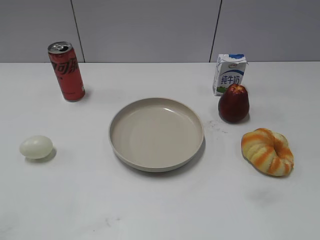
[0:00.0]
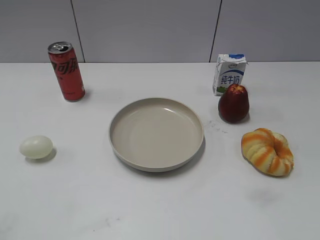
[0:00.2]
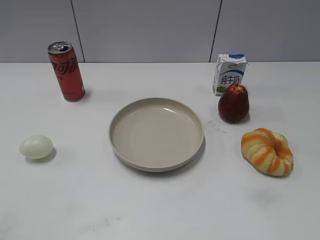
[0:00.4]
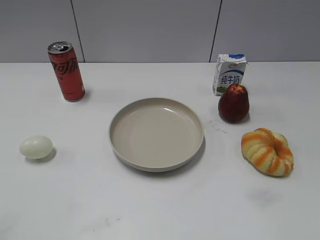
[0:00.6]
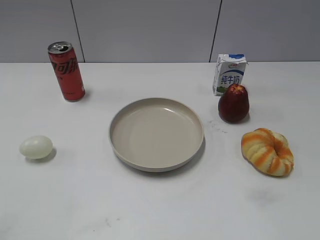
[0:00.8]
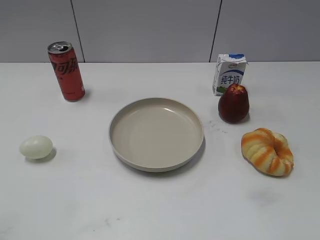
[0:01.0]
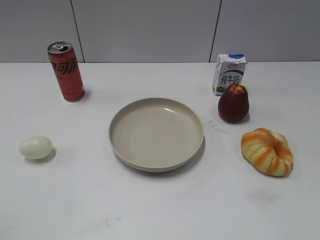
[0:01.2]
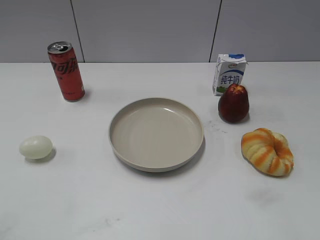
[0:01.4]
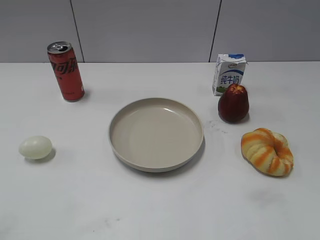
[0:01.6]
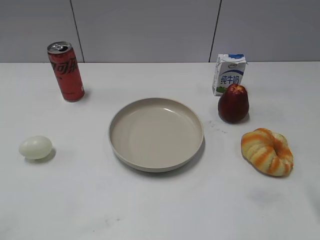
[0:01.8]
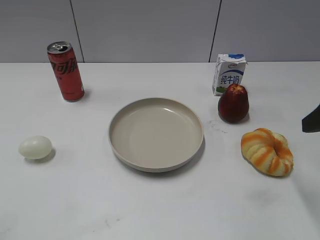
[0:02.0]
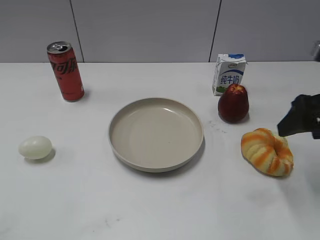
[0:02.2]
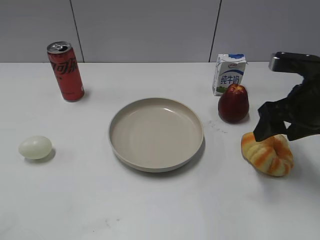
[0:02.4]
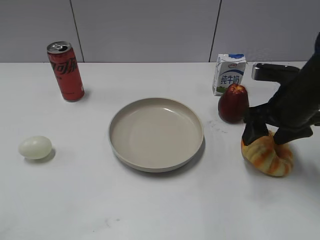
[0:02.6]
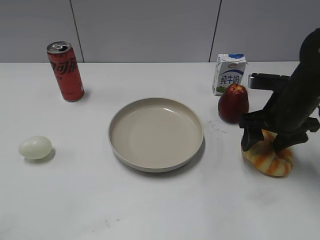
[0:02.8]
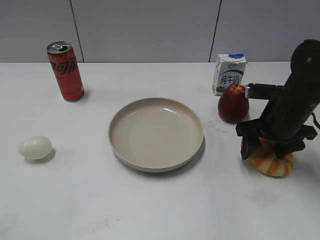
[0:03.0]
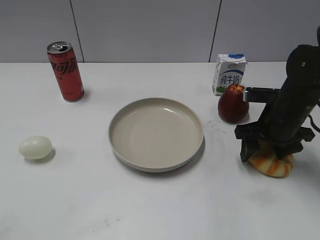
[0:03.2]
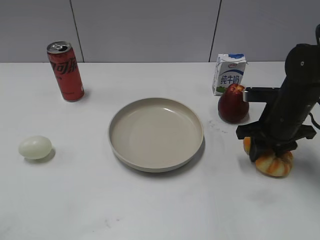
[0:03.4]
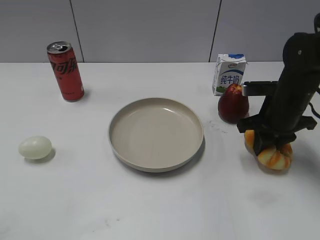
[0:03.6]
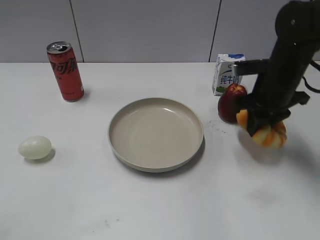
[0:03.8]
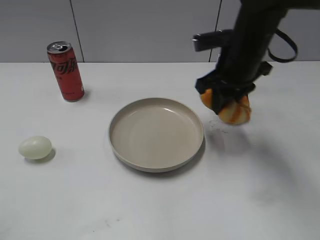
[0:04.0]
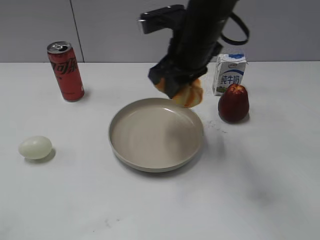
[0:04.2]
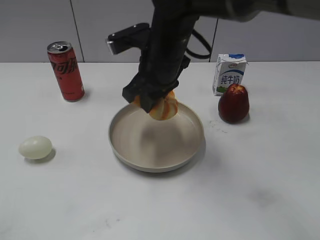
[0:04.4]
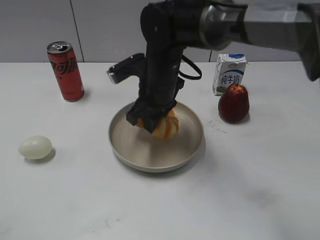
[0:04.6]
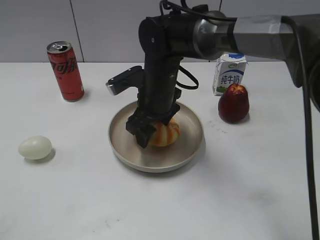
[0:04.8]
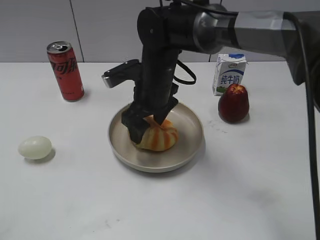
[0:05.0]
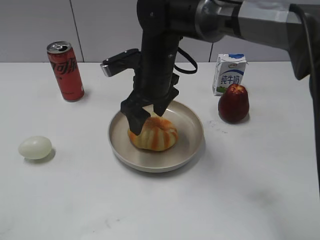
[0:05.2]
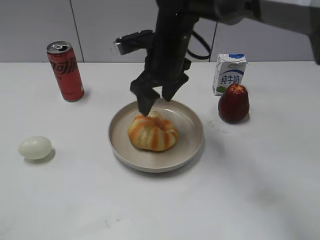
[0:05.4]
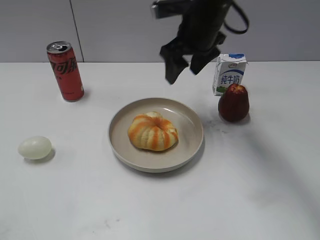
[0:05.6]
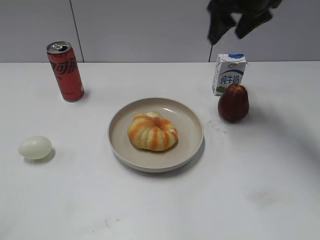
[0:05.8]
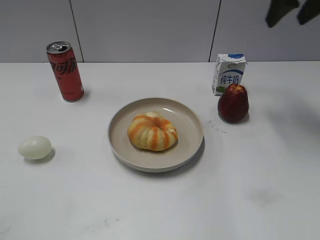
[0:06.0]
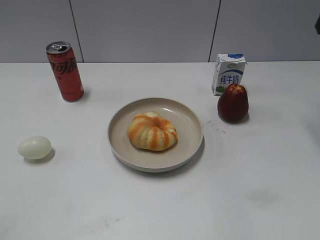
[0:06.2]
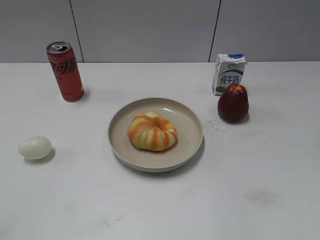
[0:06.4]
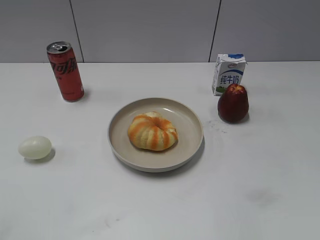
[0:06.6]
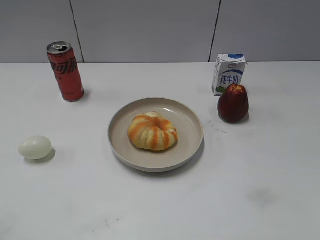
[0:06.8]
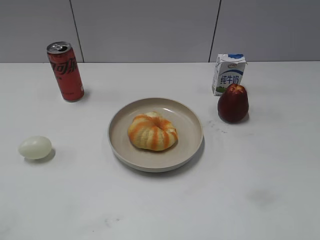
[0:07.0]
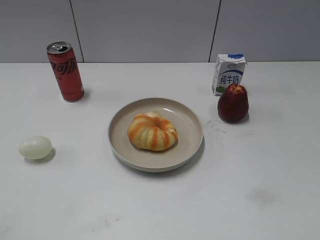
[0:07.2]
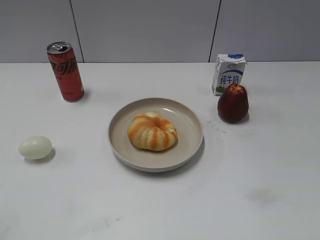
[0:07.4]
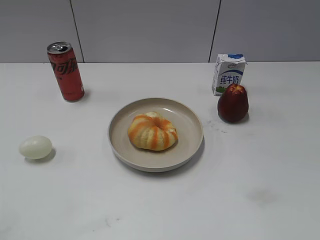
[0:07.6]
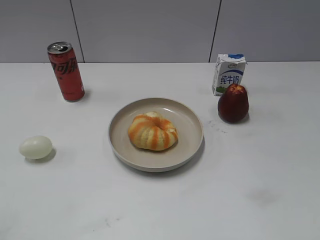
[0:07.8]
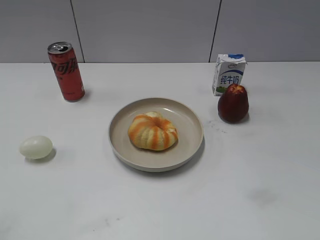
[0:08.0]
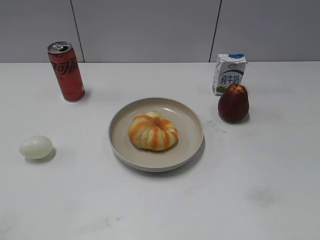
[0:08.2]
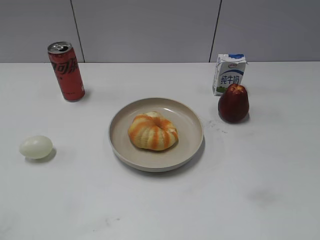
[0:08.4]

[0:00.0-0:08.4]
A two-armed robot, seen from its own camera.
Step, 0:00.8 to 0:03.4: Grasp the round bread with right gripper.
Step, 0:03.6 to 0:05.4: Place the round bread on the plate with right gripper.
0:01.4 to 0:02.8: The right gripper goes about 30 cm forward and downward.
0:02.8 to 0:04.2: The right gripper moves to the left and upward, about 20 cm, and closes up.
0:04.2 to 0:05.6: The right gripper goes about 5 cm forward, travels downward and back again, approximately 10 cm each way, and opens.
0:05.6 to 0:07.0: The right gripper shifts roughly 35 cm backward and to the right.
